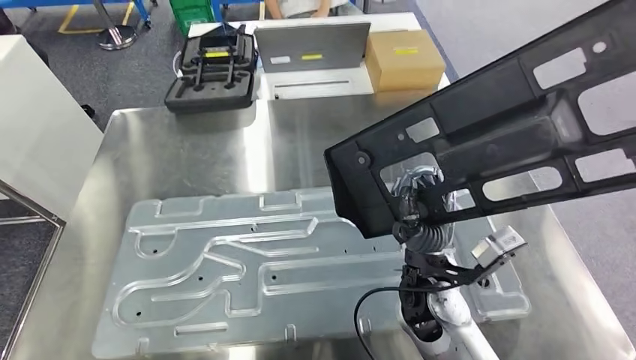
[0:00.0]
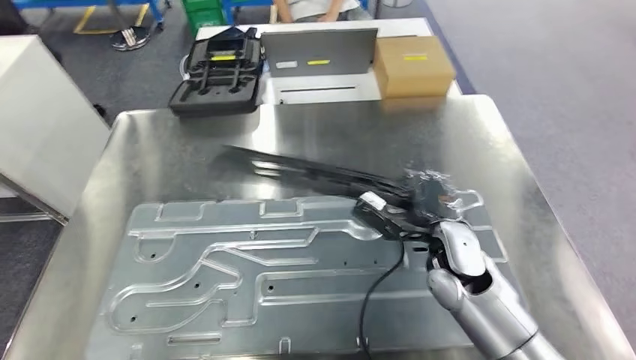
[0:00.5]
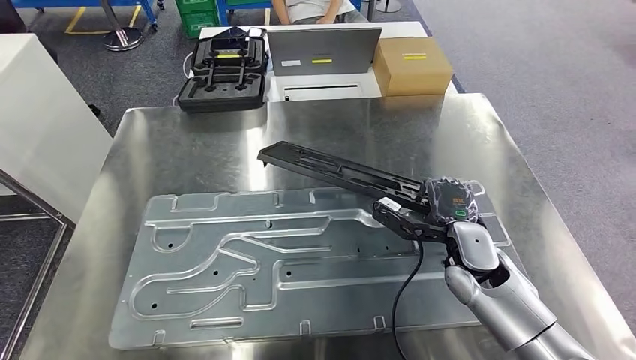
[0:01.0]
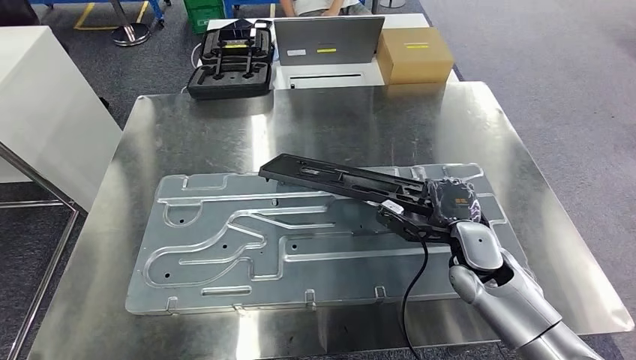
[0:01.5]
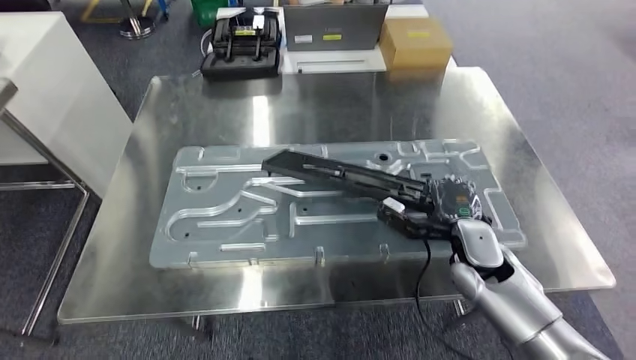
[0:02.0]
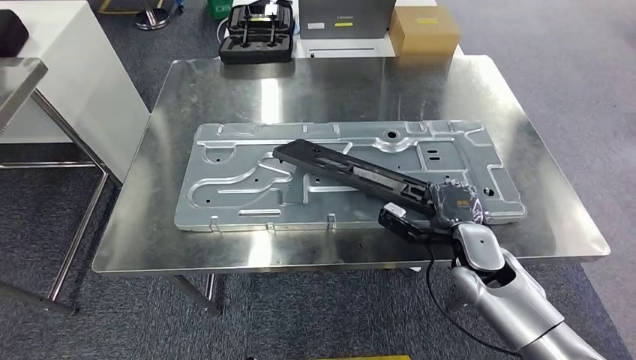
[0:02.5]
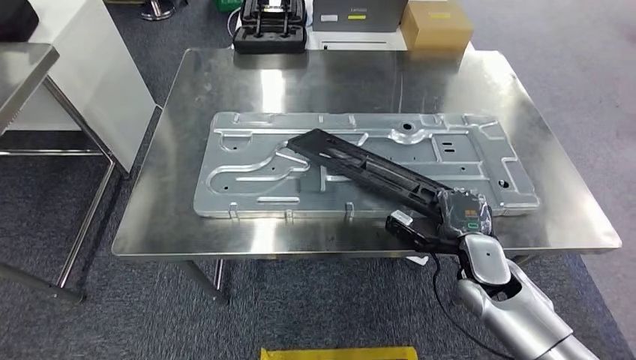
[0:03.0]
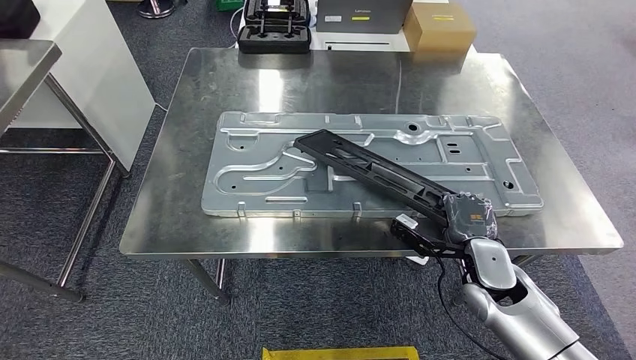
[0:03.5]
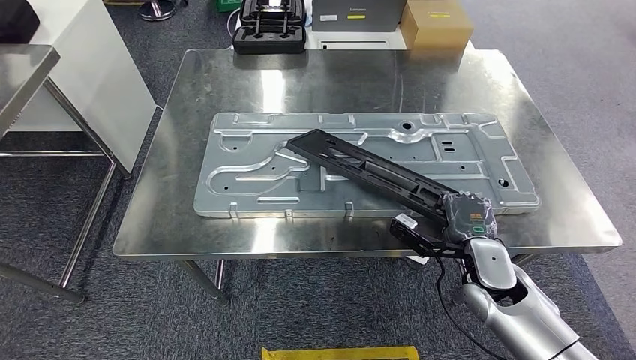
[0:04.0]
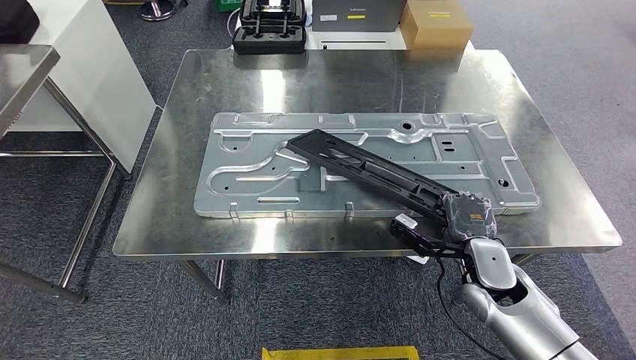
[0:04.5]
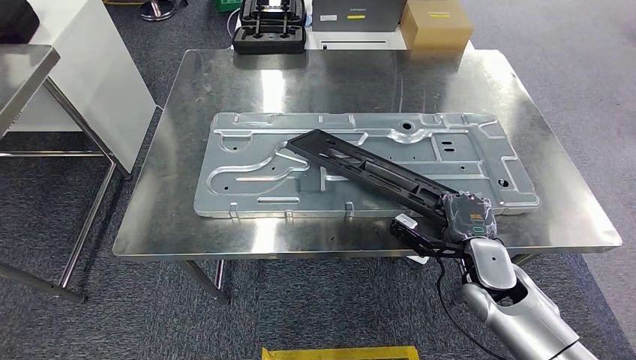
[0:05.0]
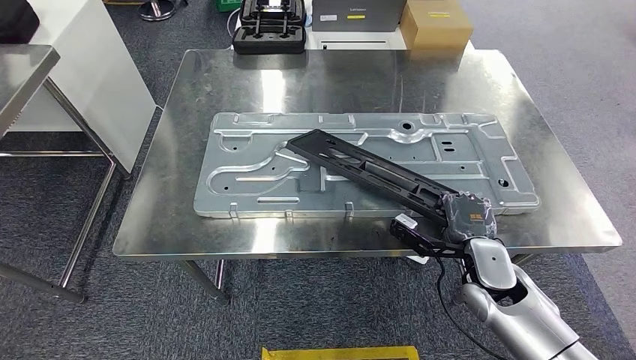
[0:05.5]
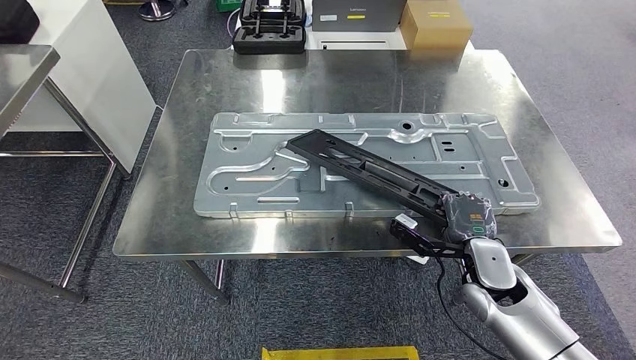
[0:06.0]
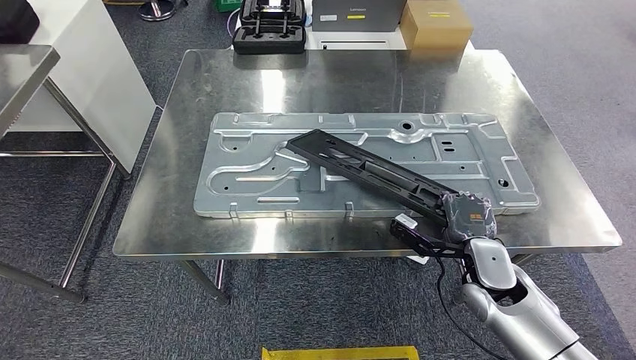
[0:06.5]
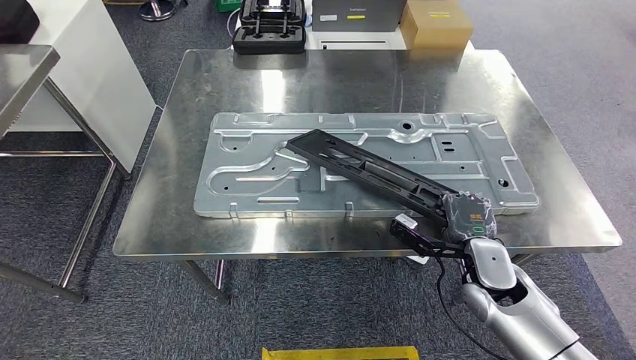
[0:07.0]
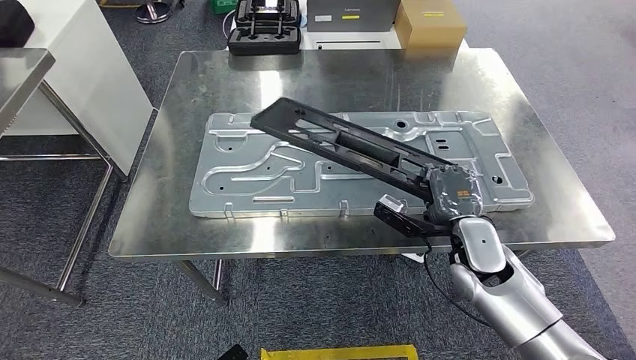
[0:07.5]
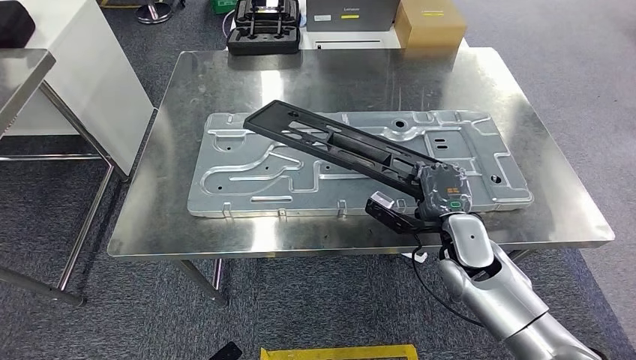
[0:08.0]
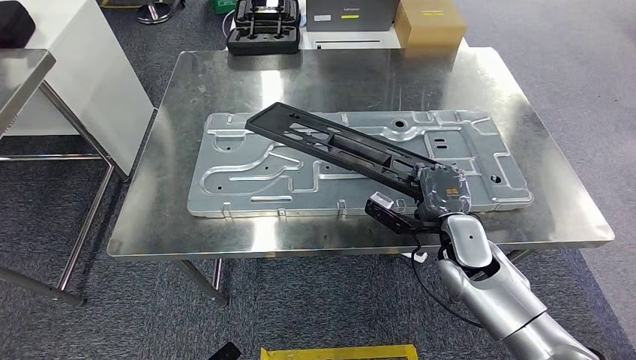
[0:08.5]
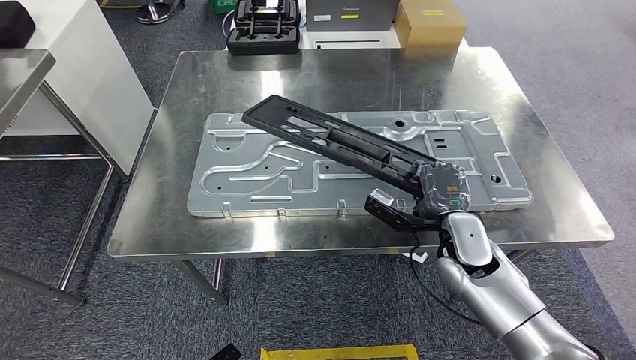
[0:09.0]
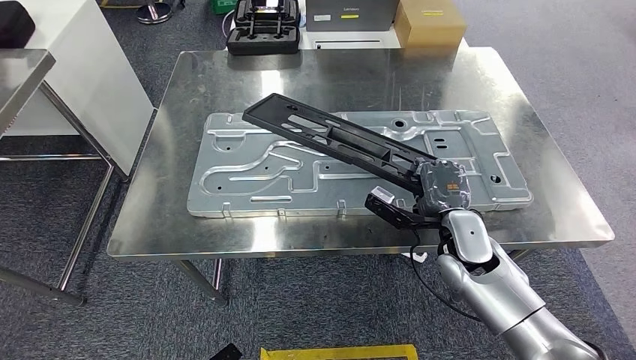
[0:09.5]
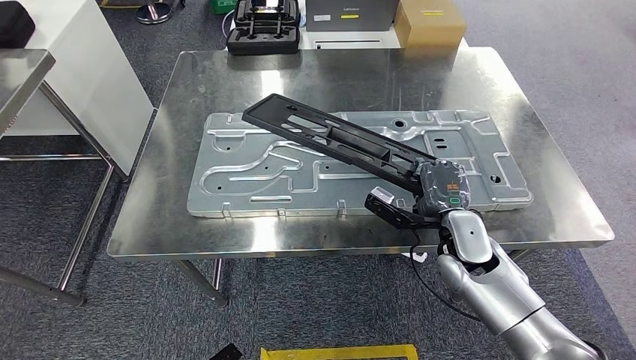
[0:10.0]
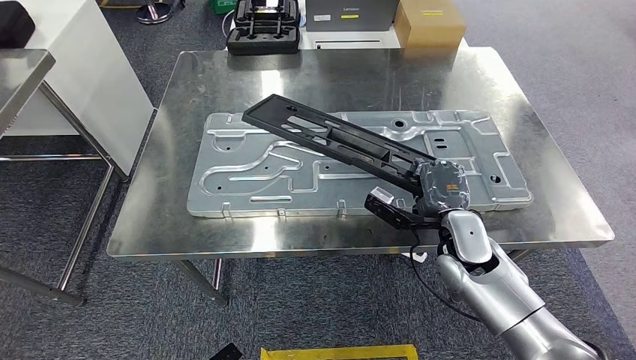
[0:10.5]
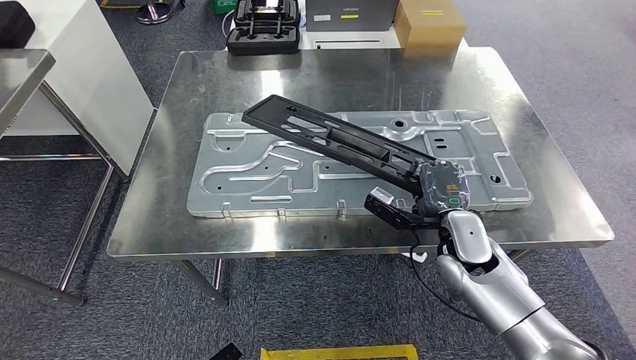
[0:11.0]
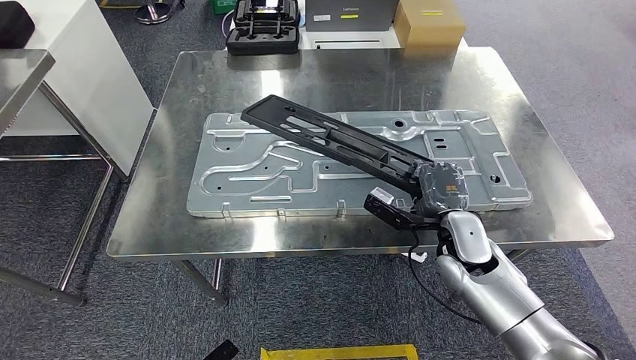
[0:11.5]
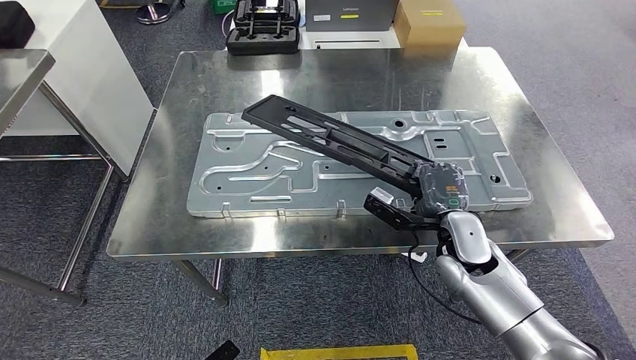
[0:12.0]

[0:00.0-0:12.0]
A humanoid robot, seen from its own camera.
0:04.0 to 0:06.0: Both hands stay put.
0:06.0 to 0:08.0: The right hand changes place by some 5 cm.
0:08.0 to 0:12.0: Neither hand changes place.

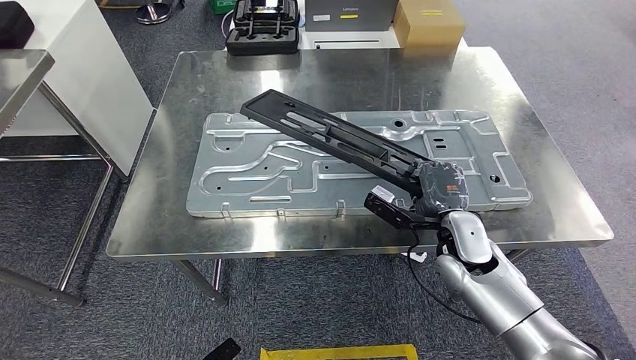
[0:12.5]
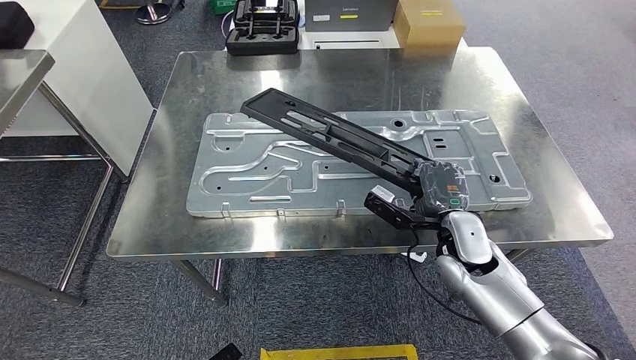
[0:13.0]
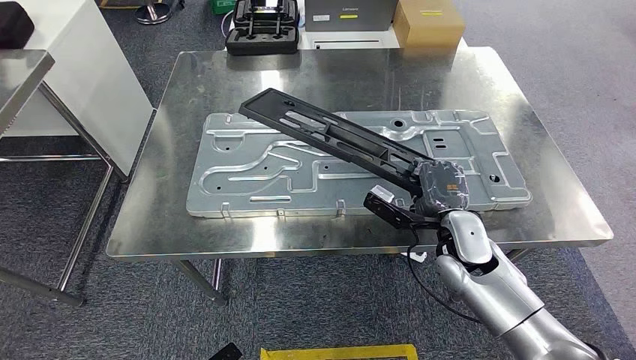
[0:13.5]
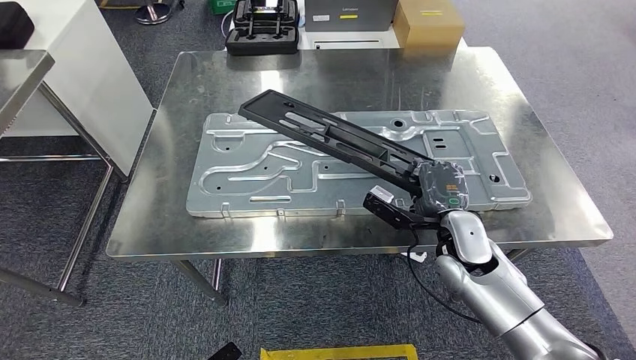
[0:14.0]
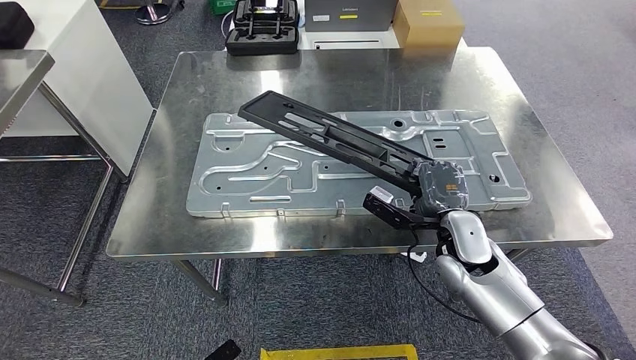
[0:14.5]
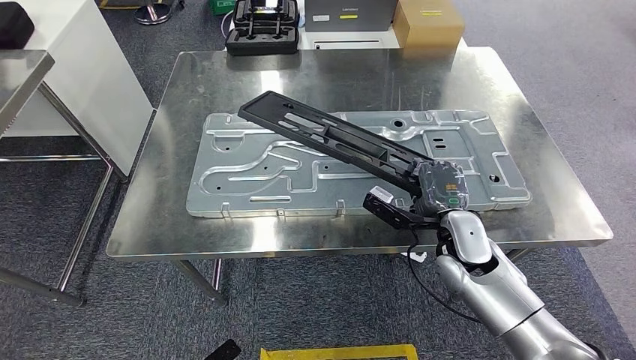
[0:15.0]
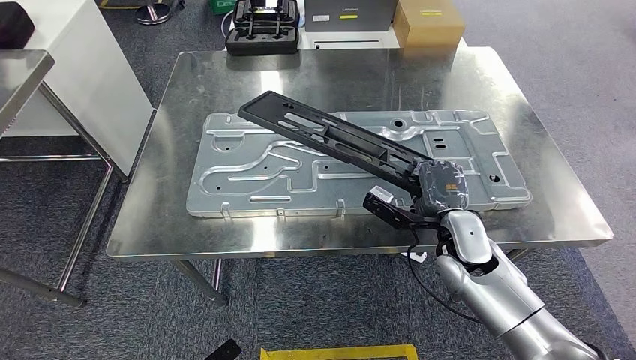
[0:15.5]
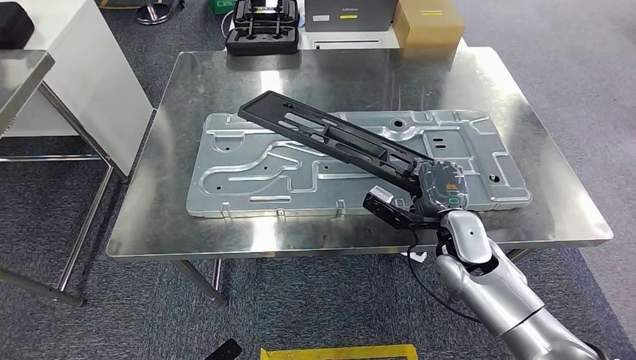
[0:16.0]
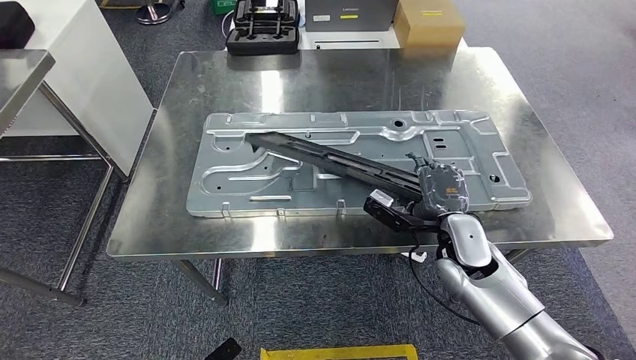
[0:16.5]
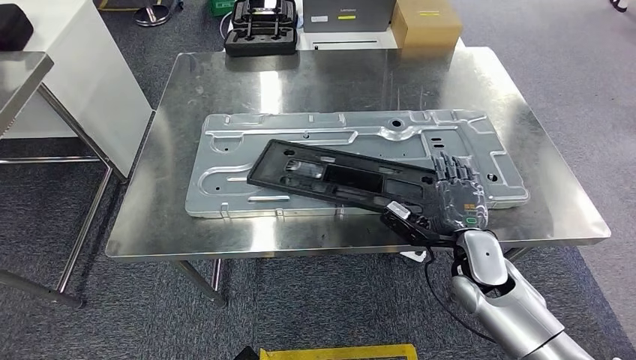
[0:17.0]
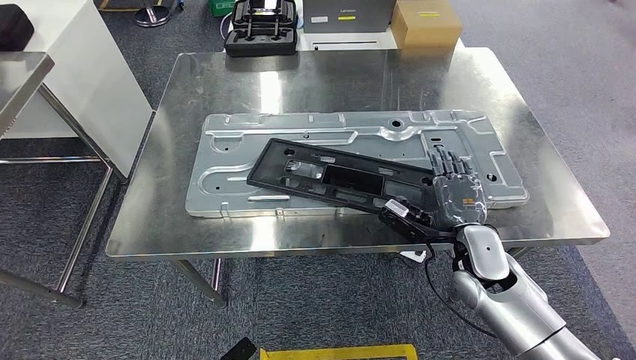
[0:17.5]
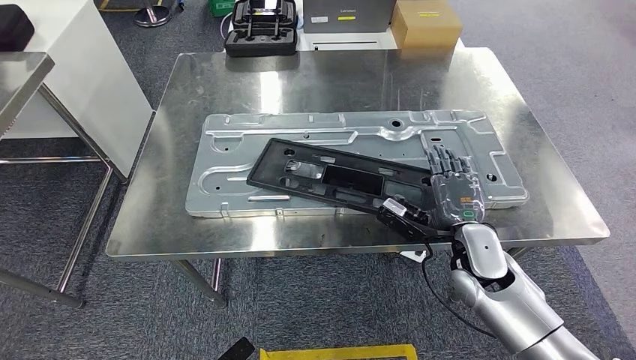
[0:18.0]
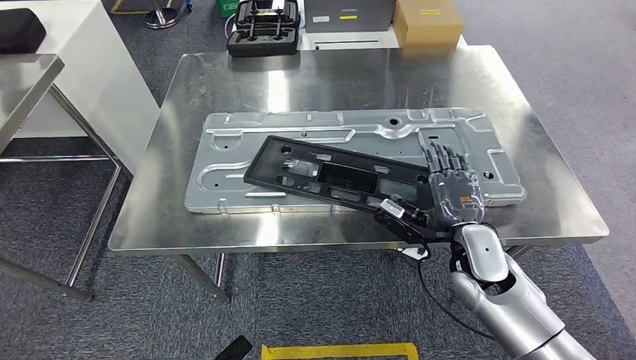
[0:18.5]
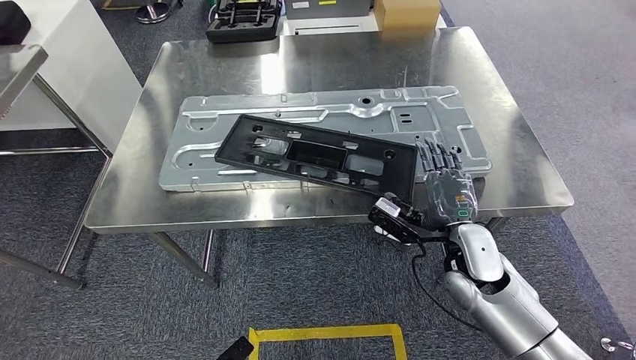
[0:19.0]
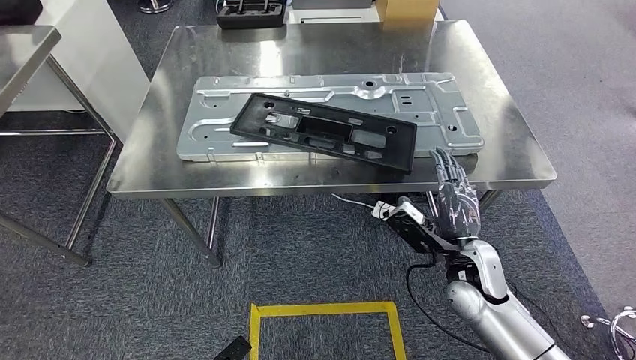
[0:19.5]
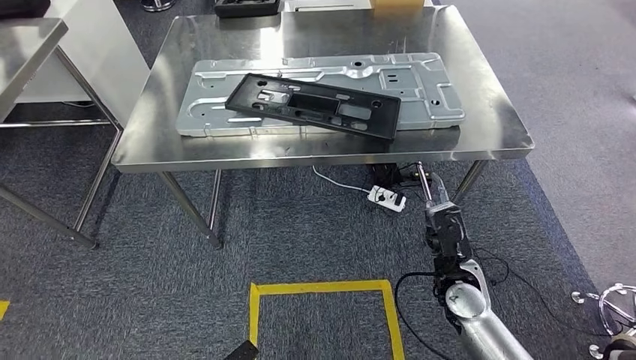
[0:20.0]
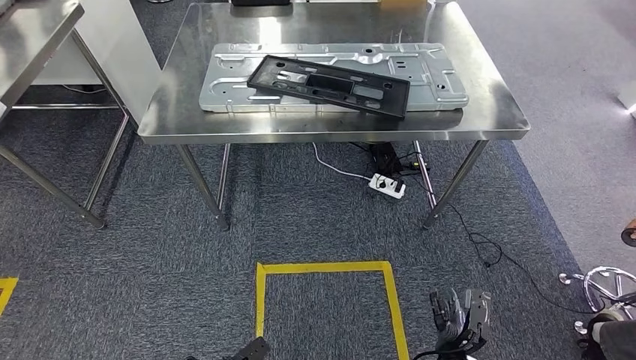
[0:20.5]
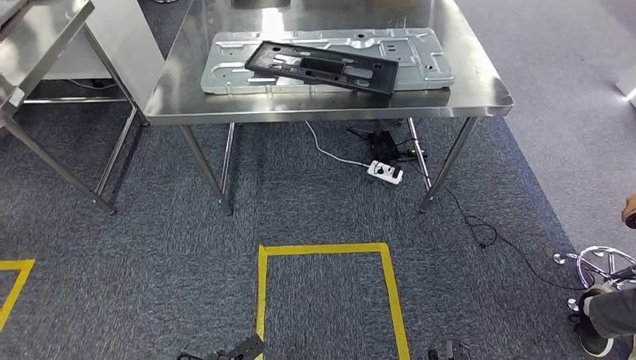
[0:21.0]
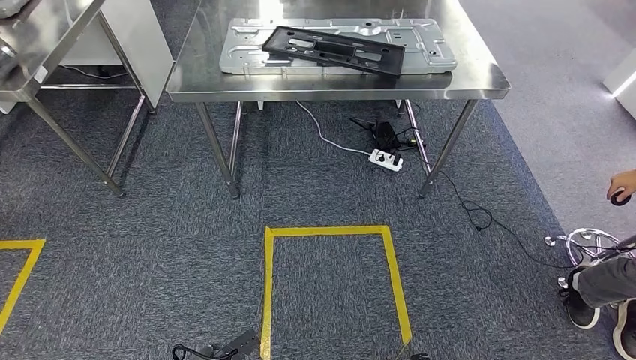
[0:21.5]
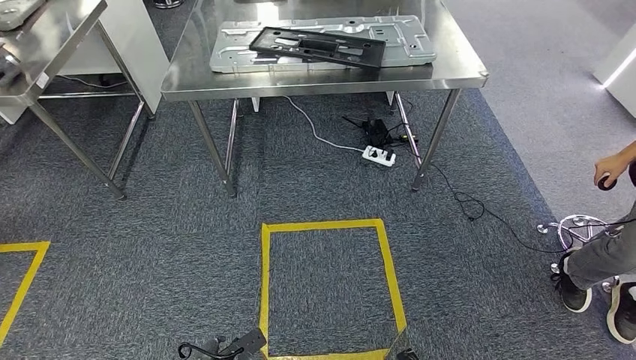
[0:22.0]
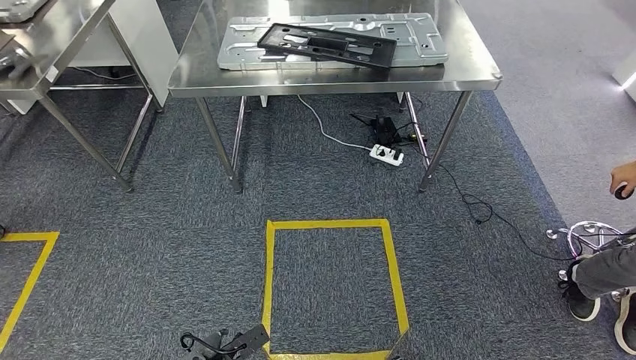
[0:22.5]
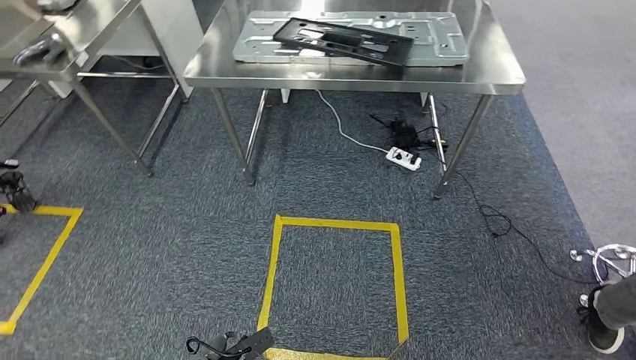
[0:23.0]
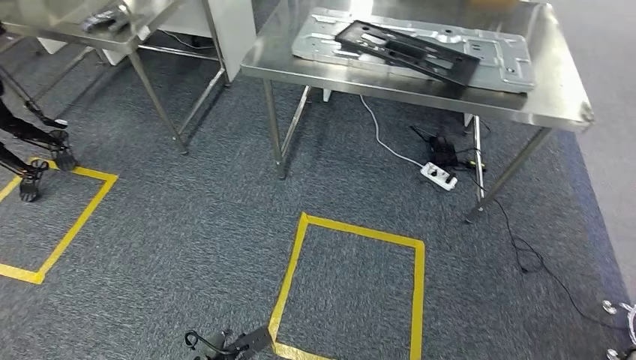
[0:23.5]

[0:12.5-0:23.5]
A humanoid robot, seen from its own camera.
Step, 0:12.5 to 0:20.5: Insert the large material into the corresponding hole on the workbench.
0:12.5 to 0:16.0: Both hands stay about where they are.
0:16.0 to 0:18.0: The hands stay close to where they were, moving slightly.
